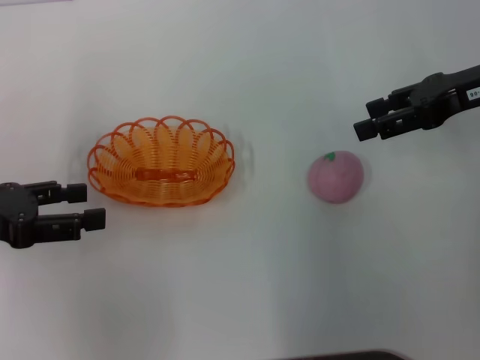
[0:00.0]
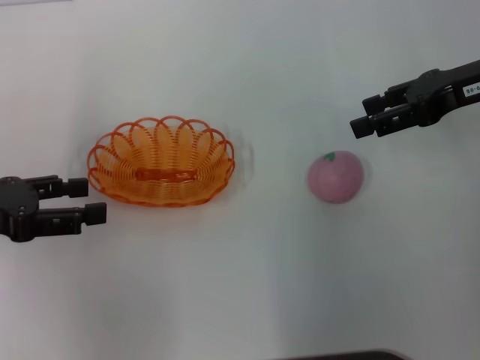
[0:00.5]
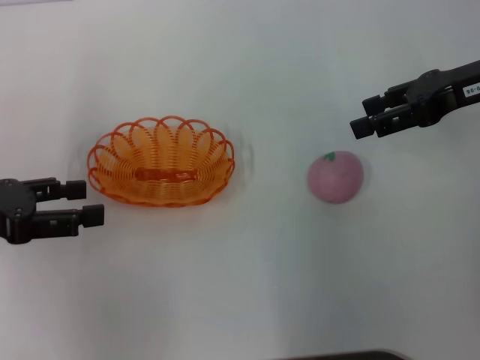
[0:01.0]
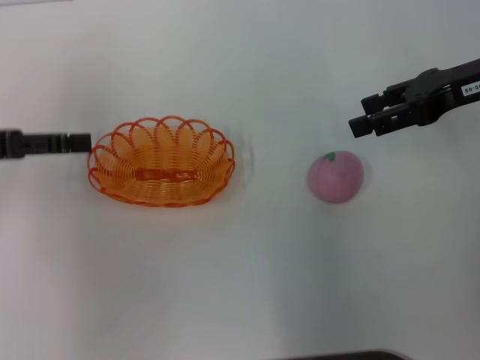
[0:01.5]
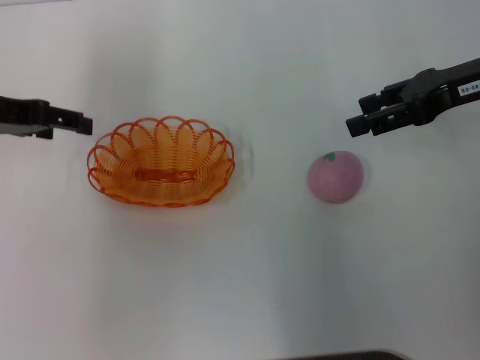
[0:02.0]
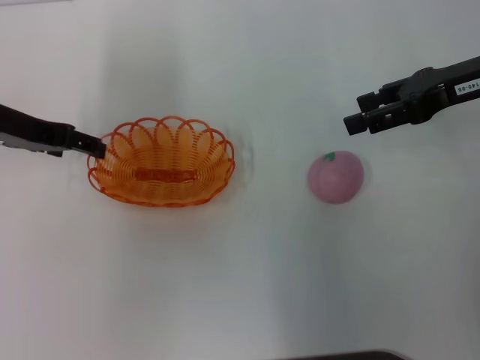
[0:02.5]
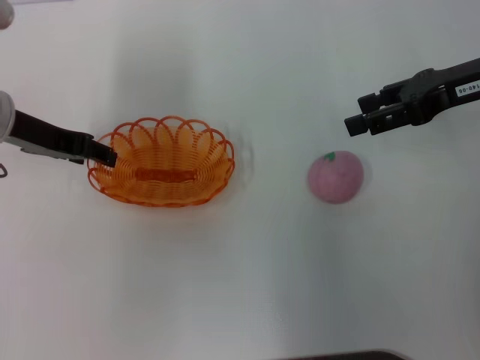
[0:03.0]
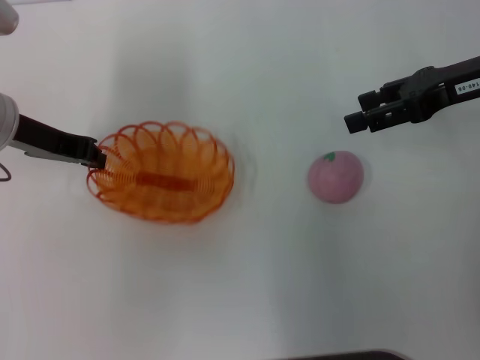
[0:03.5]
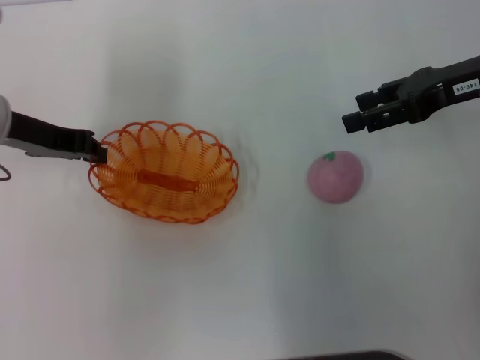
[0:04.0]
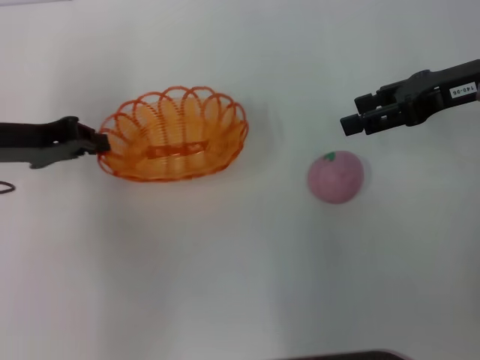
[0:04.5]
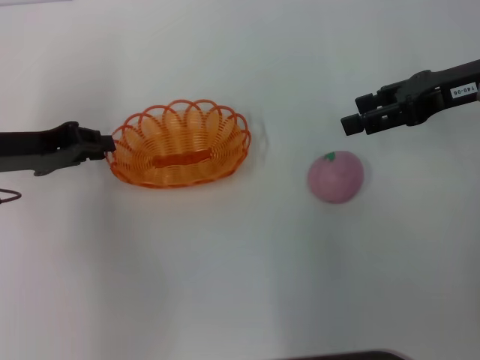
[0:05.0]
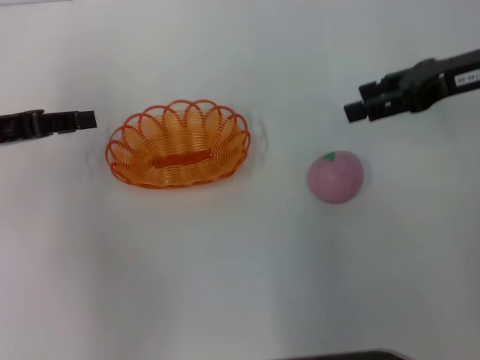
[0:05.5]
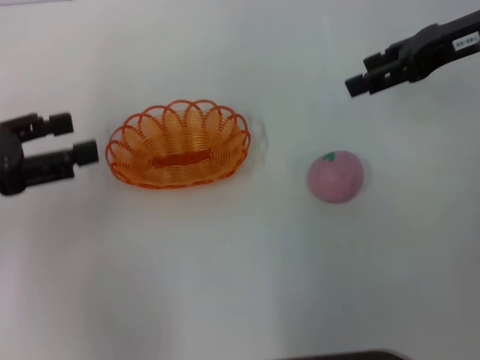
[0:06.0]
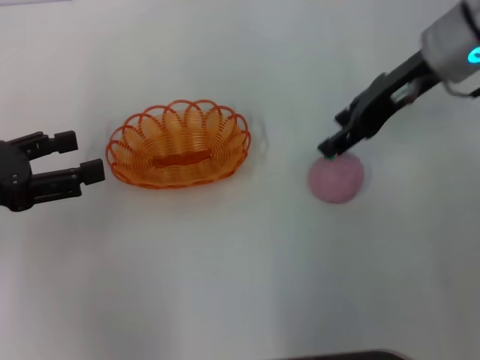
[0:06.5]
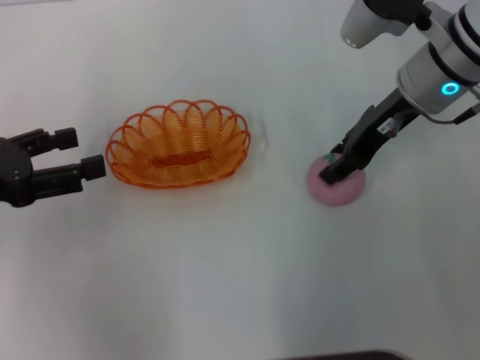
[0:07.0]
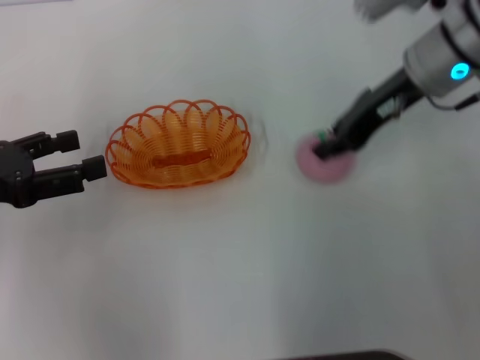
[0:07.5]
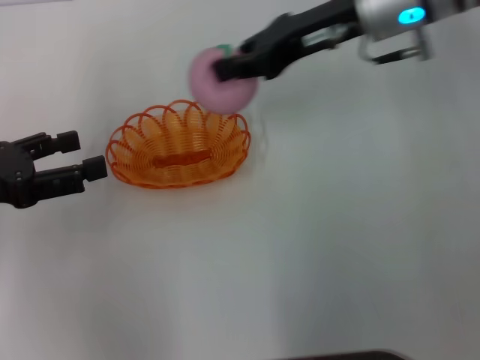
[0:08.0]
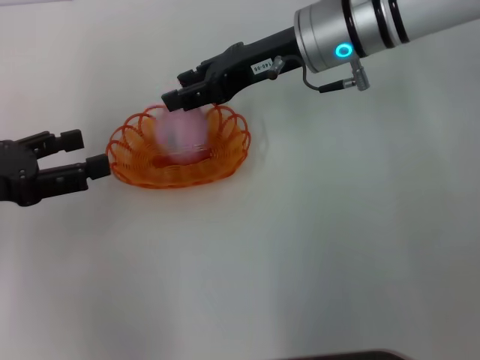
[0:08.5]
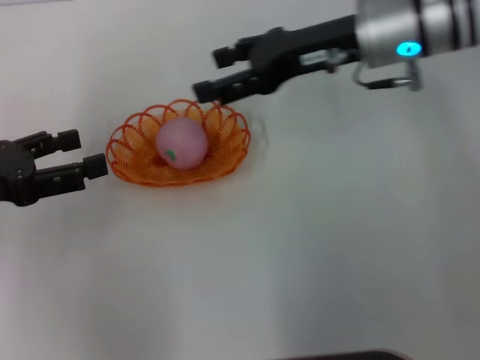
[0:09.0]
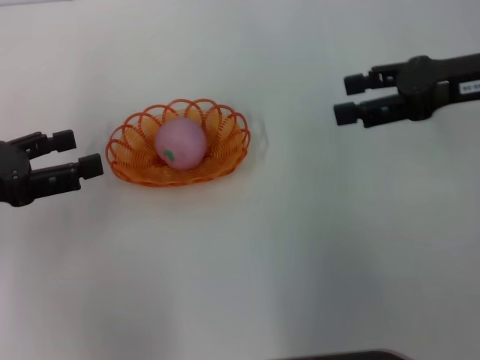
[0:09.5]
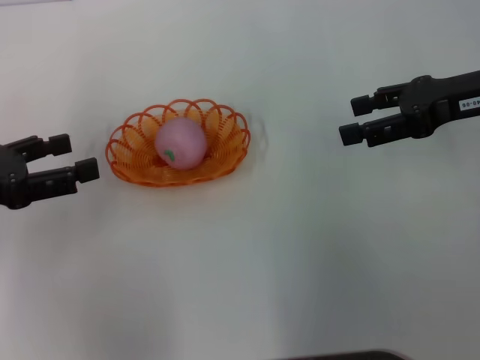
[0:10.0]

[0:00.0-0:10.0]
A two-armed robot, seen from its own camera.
Step, 0:00.0 to 0:04.0: Pick up the basket with the left gripper.
Step, 0:04.5 to 0:05.0: Place the basket in the center of view with the left gripper.
Step, 0:05.5 to 0:07.5: Pick up the peach with the right gripper.
Step, 0:08.0 to 0:08.5: Place the peach into the basket with the right gripper.
0:00.0 to 0:02.0: The left gripper heads forward, covering about 10 cm.
0:02.0 to 0:04.0: The left gripper closes up.
0:04.0 to 0:06.0: The left gripper heads backward and to the left, covering some 10 cm, and opens up.
0:06.0 to 0:08.0: The right gripper shifts approximately 10 cm to the left, and closes its fingers.
0:08.0 to 0:10.0: The right gripper travels to the right and backward by about 15 cm, and opens.

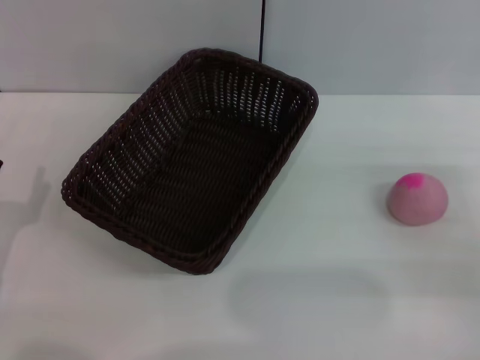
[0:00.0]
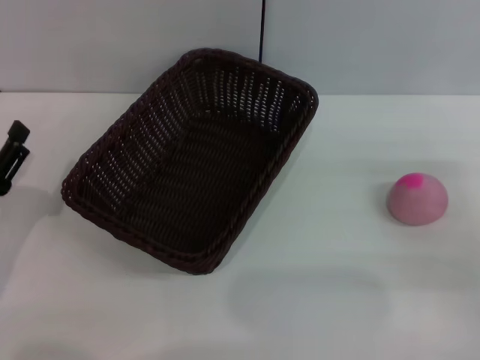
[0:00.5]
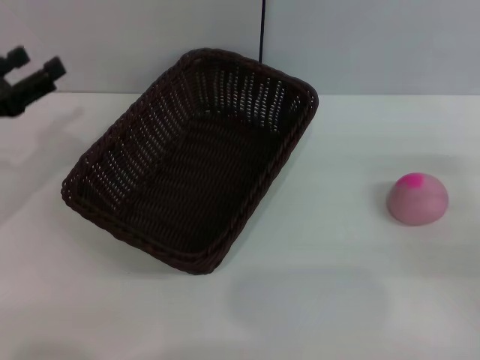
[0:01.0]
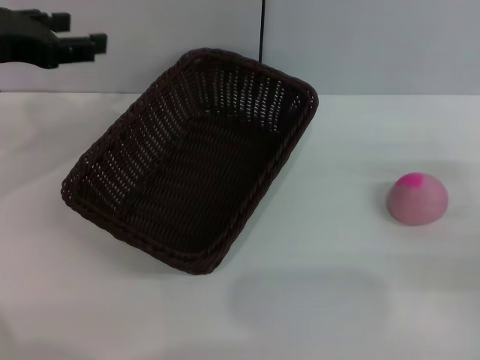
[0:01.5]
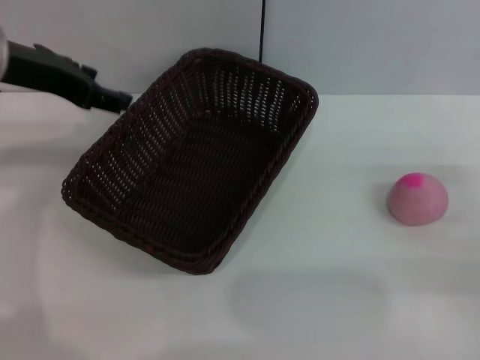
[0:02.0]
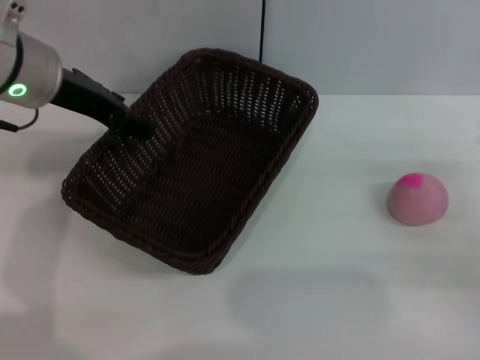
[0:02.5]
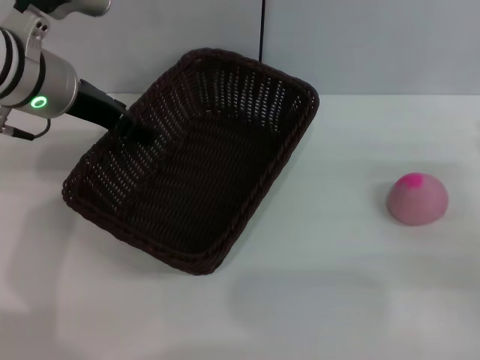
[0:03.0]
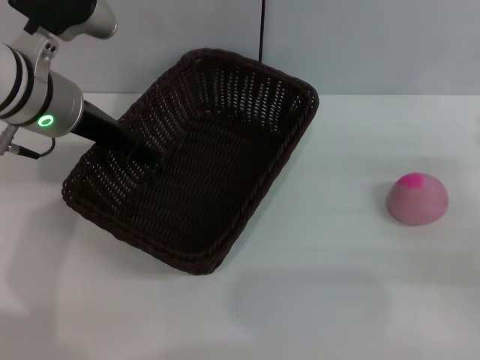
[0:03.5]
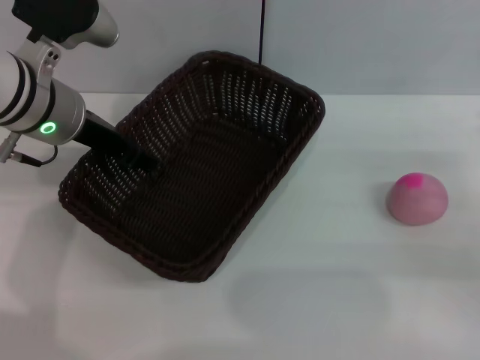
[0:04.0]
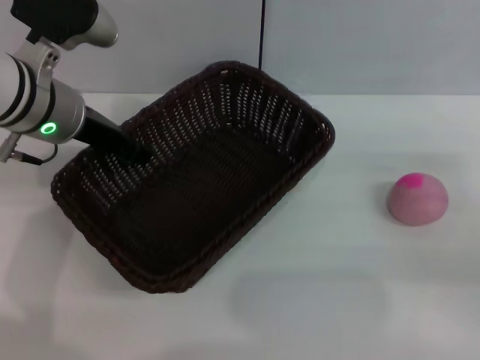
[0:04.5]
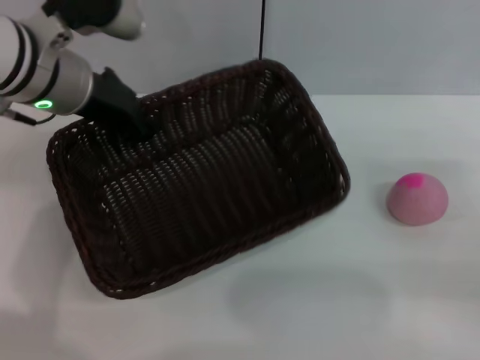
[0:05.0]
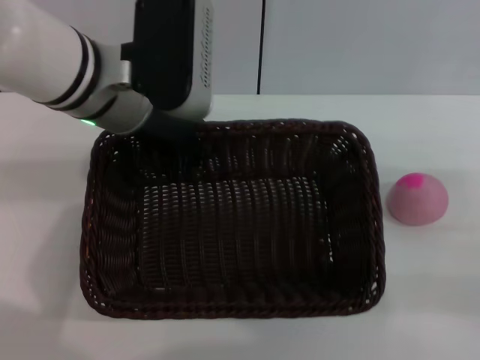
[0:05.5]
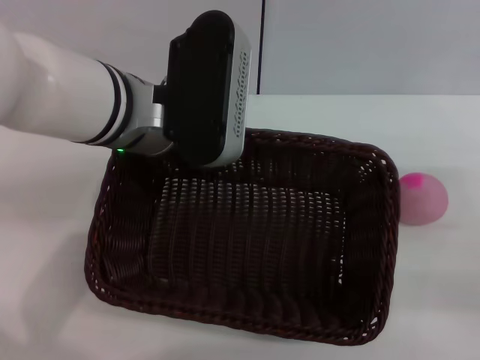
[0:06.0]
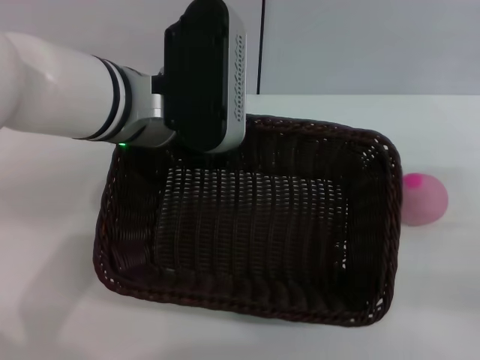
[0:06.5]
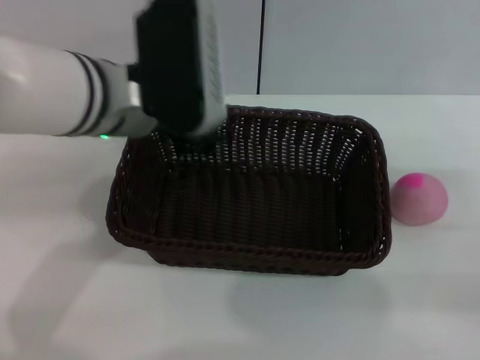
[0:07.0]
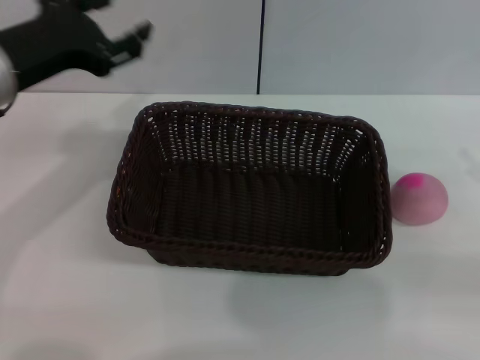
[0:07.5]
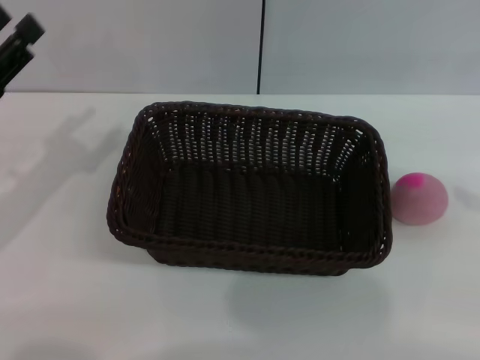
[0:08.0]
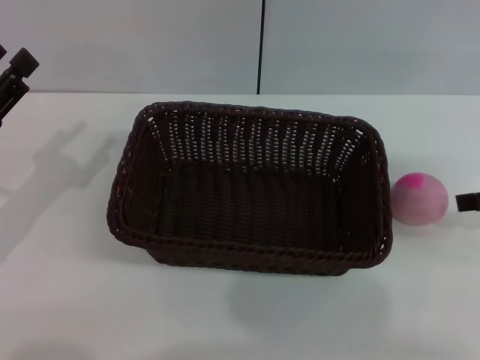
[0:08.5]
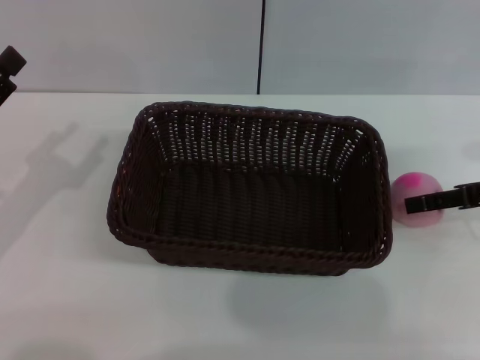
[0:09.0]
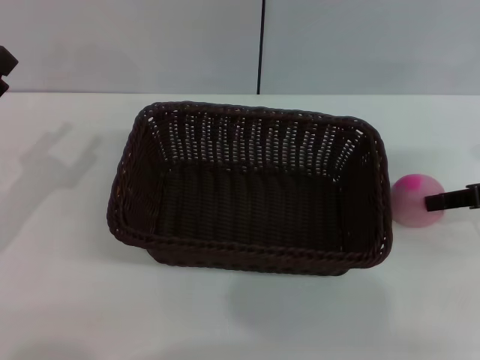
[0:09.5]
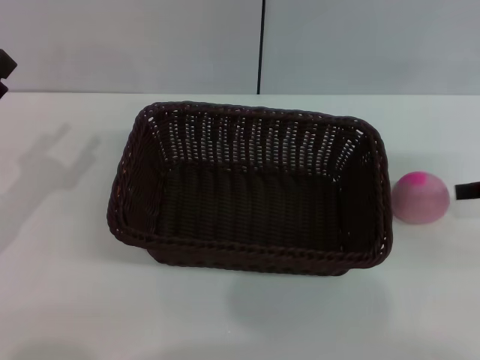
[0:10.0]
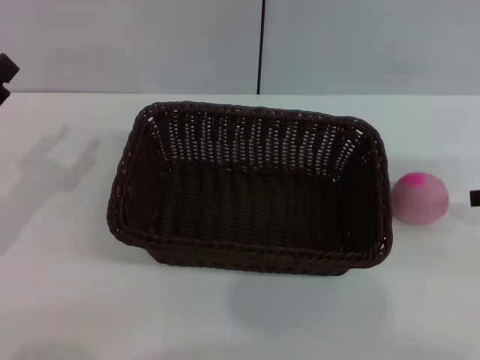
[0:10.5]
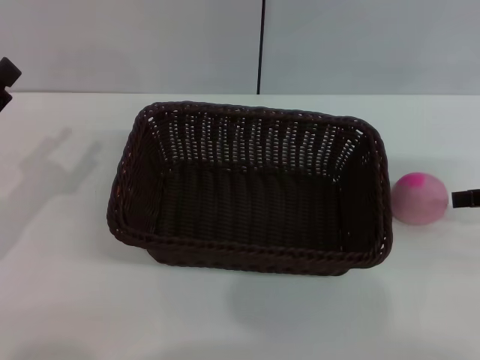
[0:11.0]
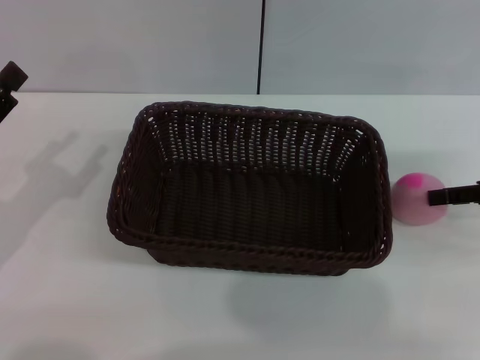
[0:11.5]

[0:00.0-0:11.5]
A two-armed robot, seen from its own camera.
Step, 0:00.0 to 0:04.5: Pick up the dark basket with the left gripper.
Step, 0:05.0 to 0:07.0: Place the dark basket in the center of view with the right gripper.
0:00.0 to 0:02.0: The left gripper shifts approximately 25 cm upward and forward.
0:02.0 to 0:04.0: The left gripper is displaced downward by some 5 cm.
0:04.0 to 0:06.0: The left gripper goes some 10 cm to the right, and closes up.
0:06.0 to 0:07.5: The left gripper travels to the left by roughly 15 cm, and opens its fingers; the right gripper ends up roughly 5 cm from where it was.
0:07.5 to 0:09.5: The right gripper travels forward and to the left by approximately 10 cm. The left gripper shifts roughly 15 cm to the left, downward and backward.

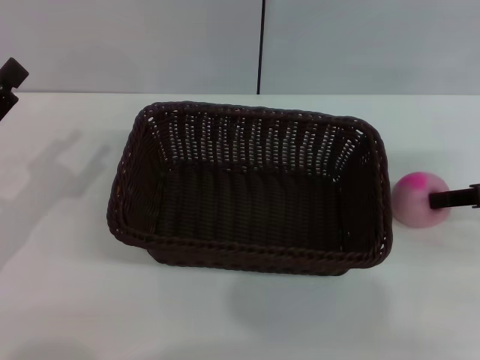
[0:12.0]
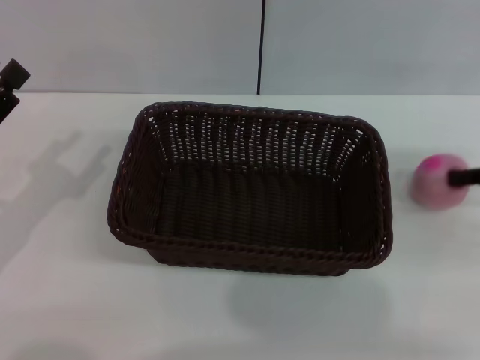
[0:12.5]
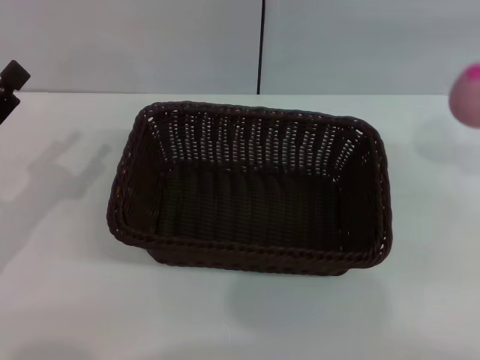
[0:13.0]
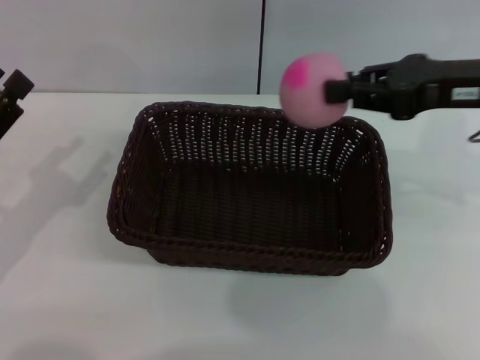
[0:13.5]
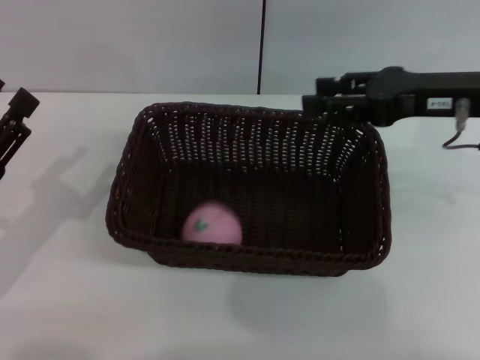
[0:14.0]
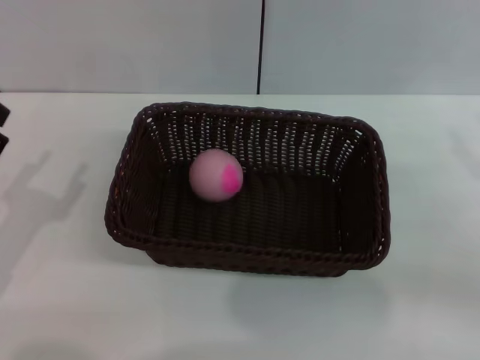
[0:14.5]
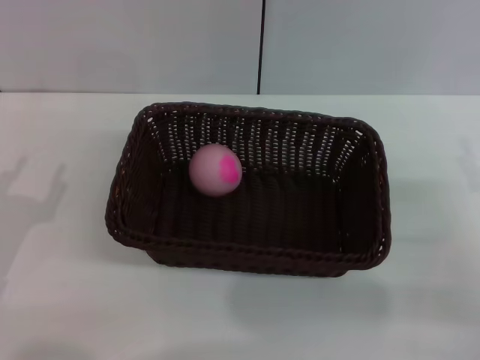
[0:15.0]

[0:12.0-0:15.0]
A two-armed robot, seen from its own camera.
Step, 0:13.5 to 0:14.0: Place the peach into the basket with the left gripper.
0:12.0 to 0:13.5: The right gripper is displaced to the left and upward by about 15 cm, and closes up.
0:13.5 to 0:15.0: The right gripper shifts approximately 20 cm downward, backward and to the right, and opens. Meanwhile the left gripper shifts by roughly 5 cm.
